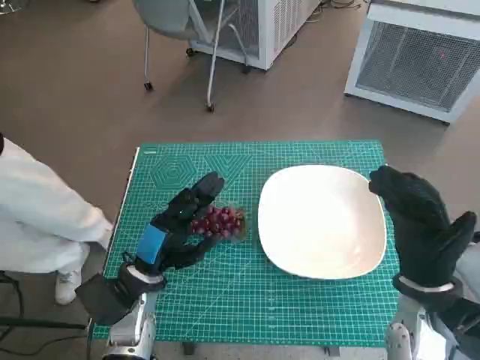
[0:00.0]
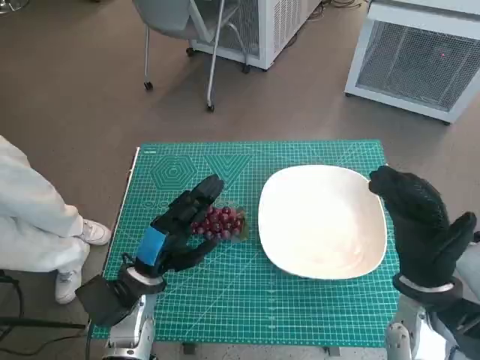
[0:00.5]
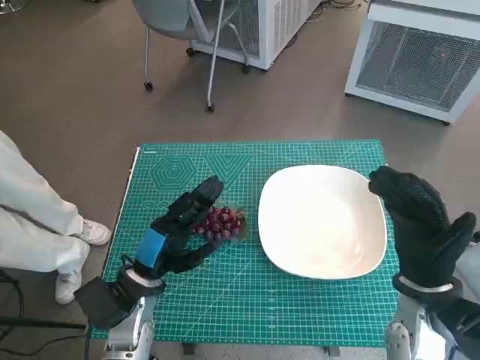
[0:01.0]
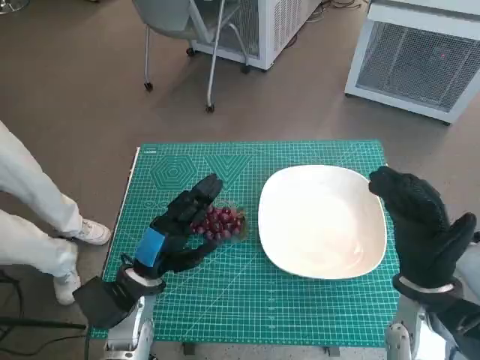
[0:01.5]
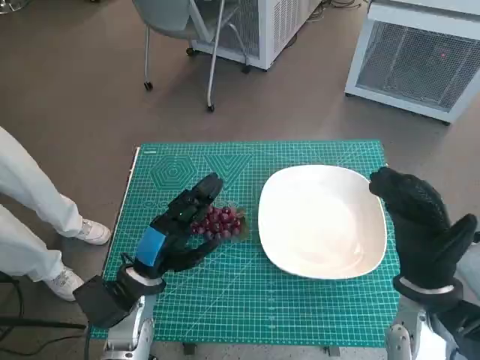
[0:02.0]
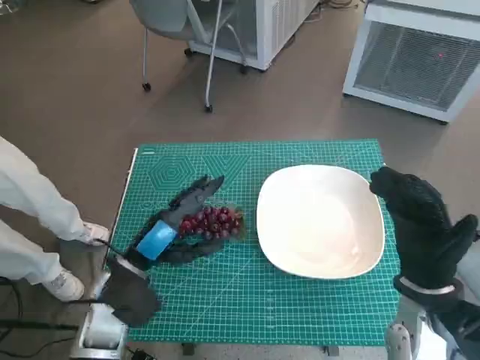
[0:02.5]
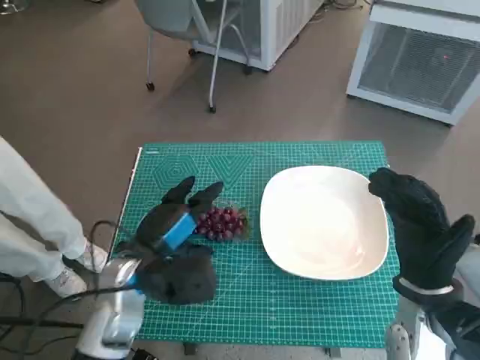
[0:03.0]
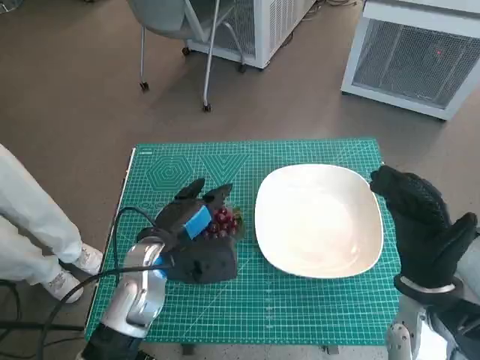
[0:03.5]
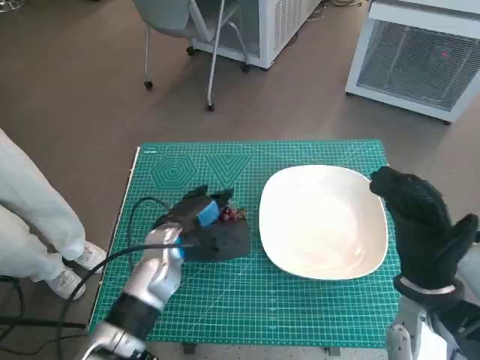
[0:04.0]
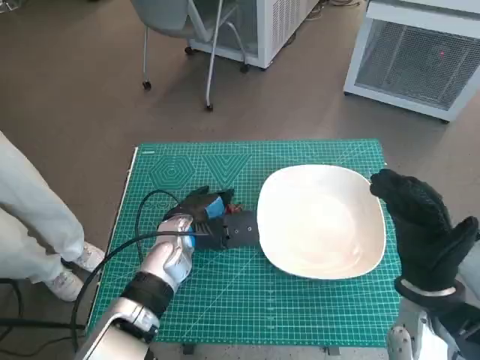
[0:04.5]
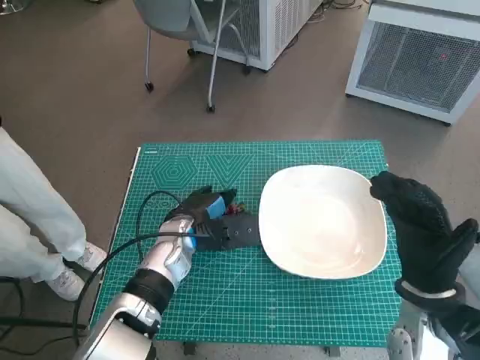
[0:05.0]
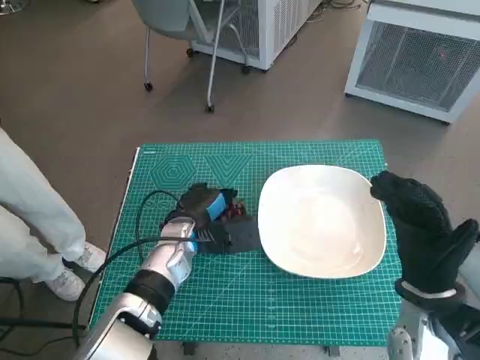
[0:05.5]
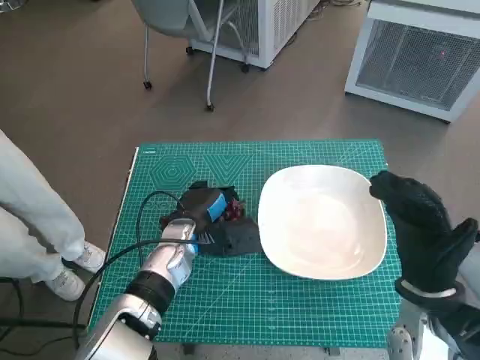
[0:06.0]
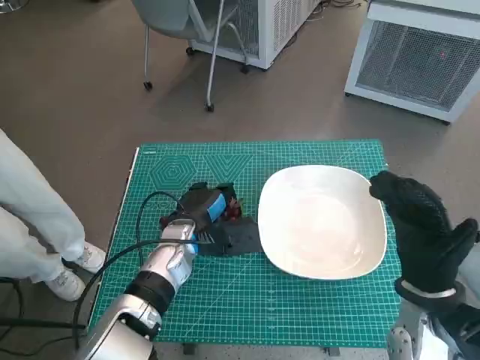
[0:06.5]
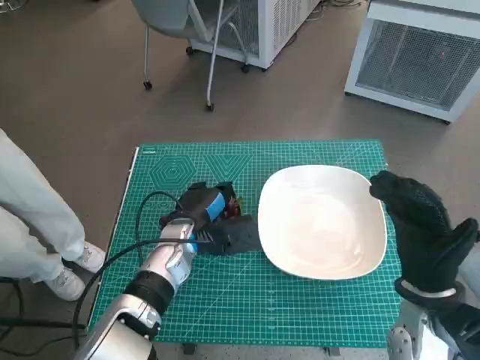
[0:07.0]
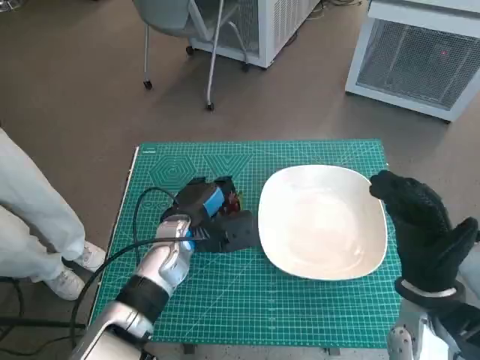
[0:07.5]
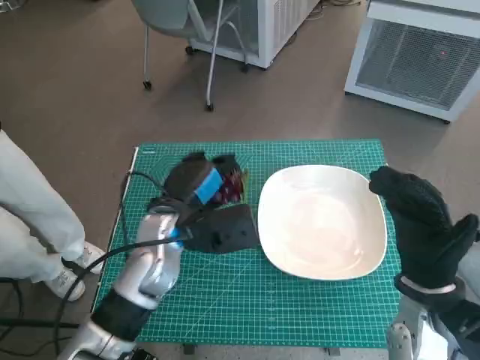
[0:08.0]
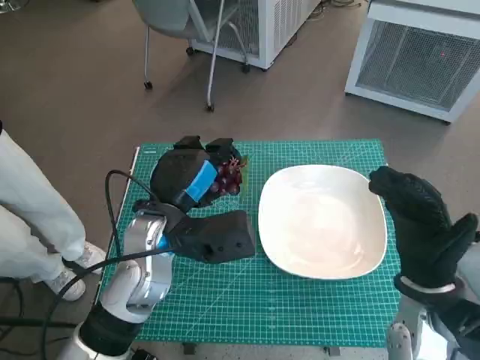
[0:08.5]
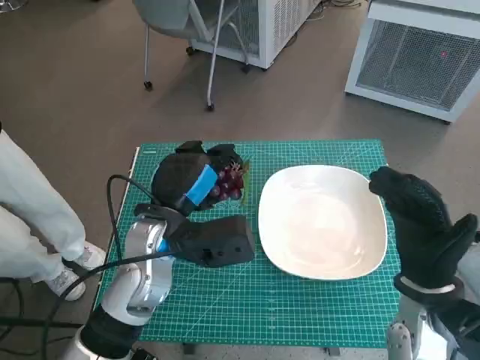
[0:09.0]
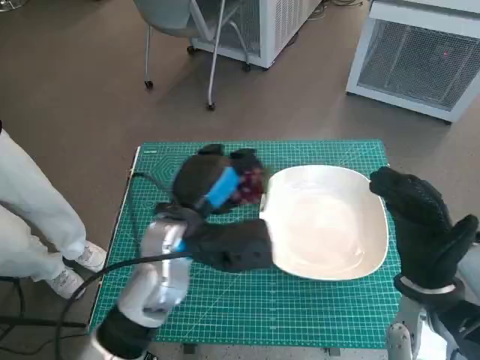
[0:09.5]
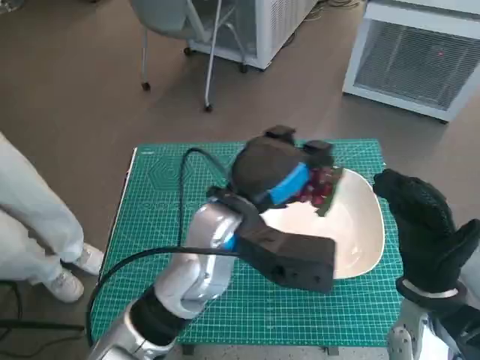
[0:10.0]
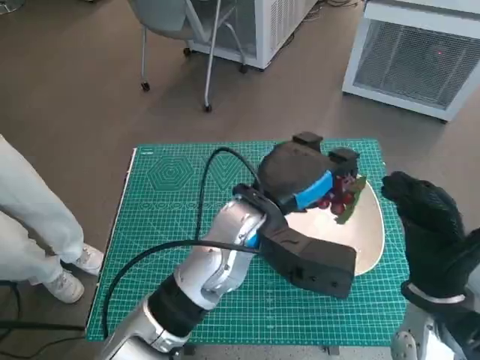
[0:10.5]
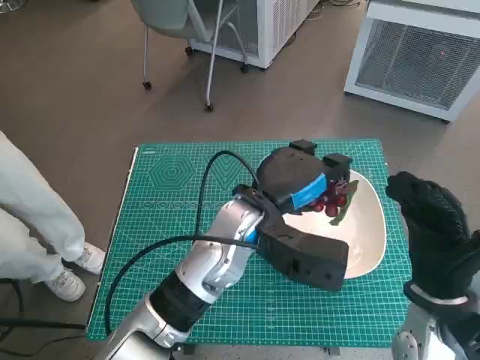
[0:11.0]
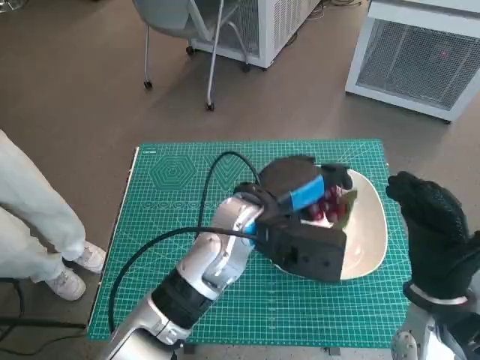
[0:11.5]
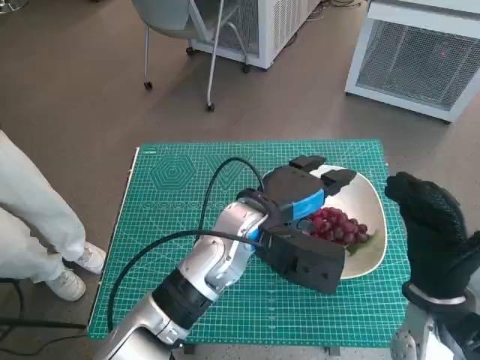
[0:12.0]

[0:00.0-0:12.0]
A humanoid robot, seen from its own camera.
Task of the whole recording: Pick up the grapes and put them on the plate.
Step, 0:00.0 to 0:07.0: Grasp the grapes with left hand.
0:02.0 to 0:04.0: The left hand goes roughly 5 cm forward.
0:04.0 to 0:06.0: There are only small adjustments of the hands.
0:06.0 to 0:08.0: The left hand travels upward by some 5 cm.
0:08.0 to 0:10.0: The left hand goes roughly 10 cm to the right and upward.

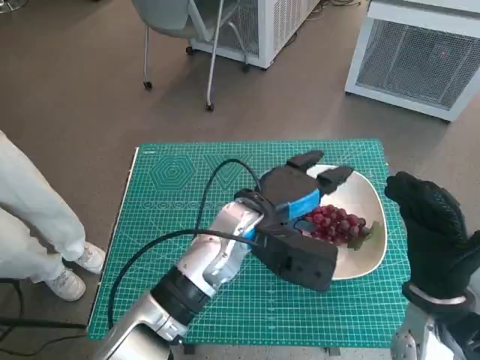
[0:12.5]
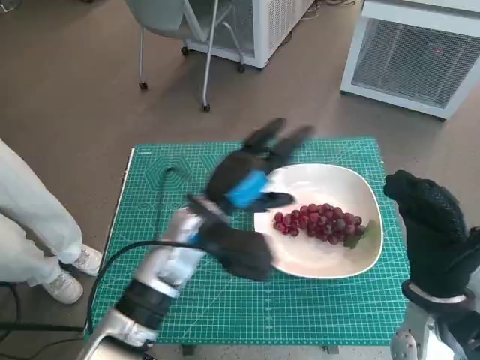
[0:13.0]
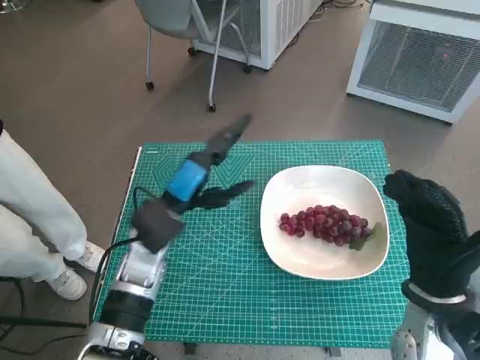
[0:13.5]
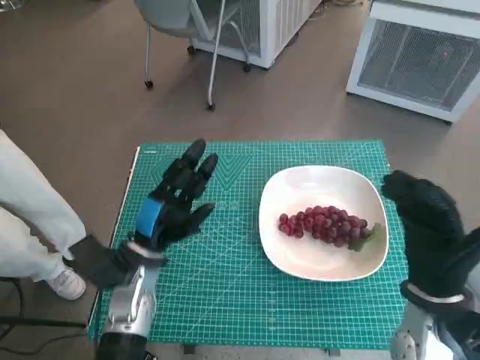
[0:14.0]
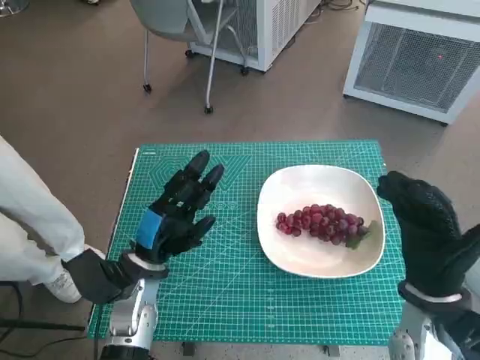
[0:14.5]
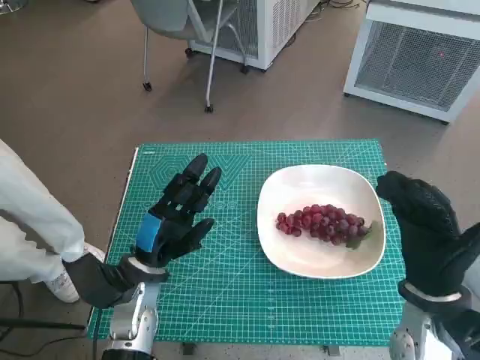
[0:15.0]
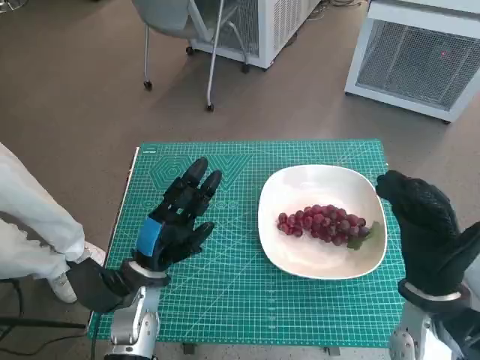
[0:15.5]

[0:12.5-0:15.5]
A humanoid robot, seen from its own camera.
Task of the whole recording: Pick up the grapes and put them on the plate.
0:12.5 to 0:14.0: The left hand heads to the left and downward, covering about 20 cm.
0:14.0 to 0:15.5: The hands make only small movements.

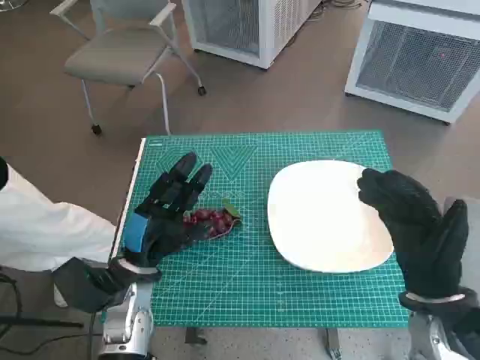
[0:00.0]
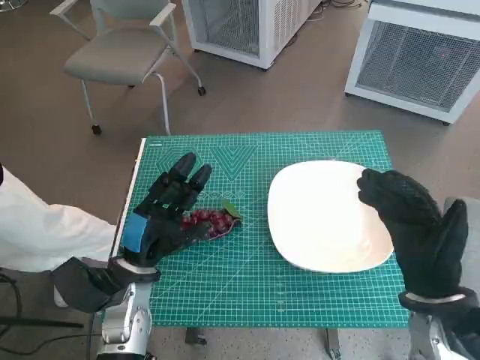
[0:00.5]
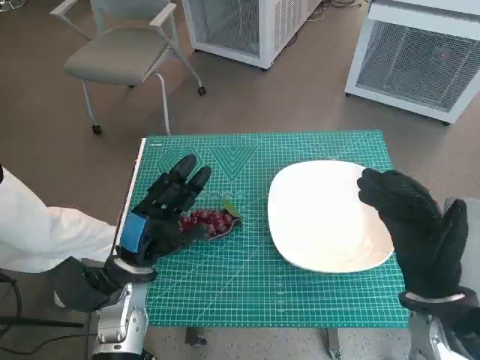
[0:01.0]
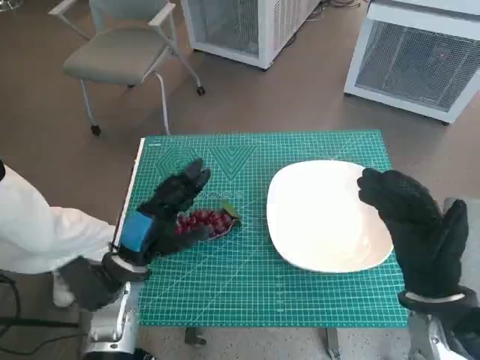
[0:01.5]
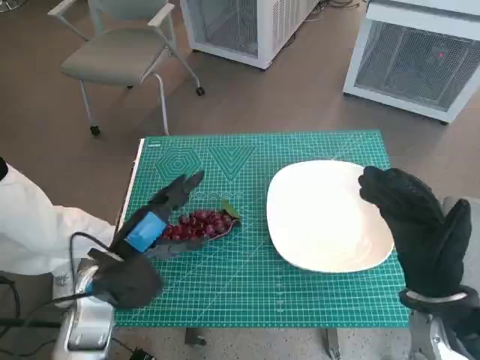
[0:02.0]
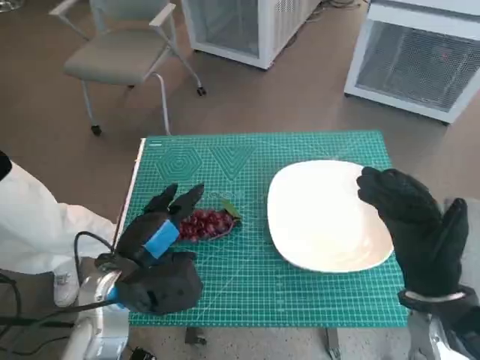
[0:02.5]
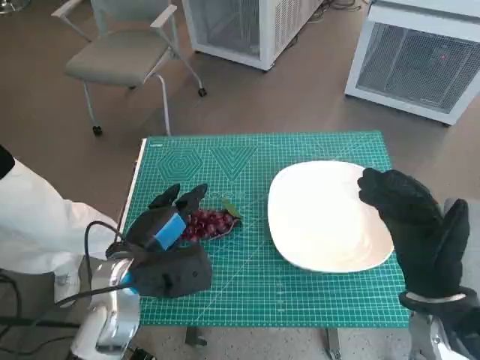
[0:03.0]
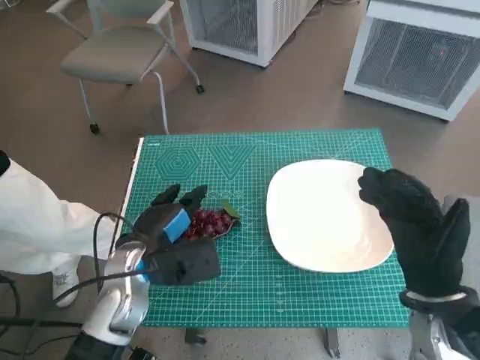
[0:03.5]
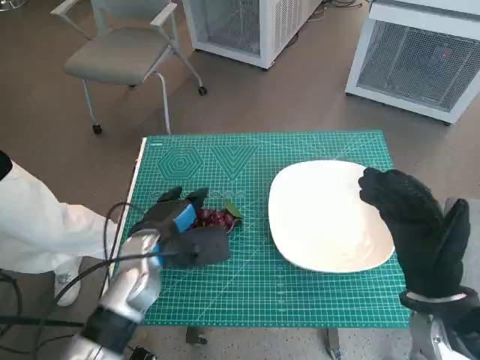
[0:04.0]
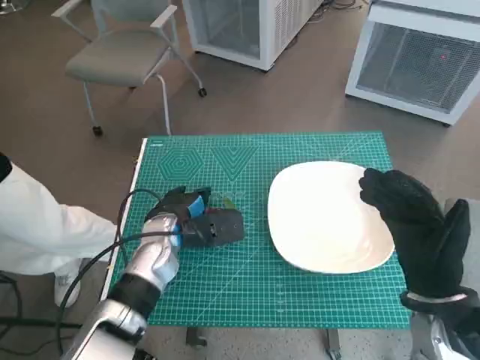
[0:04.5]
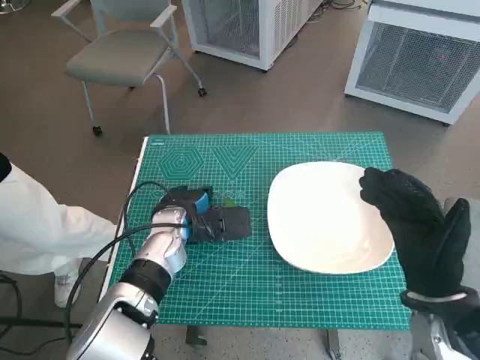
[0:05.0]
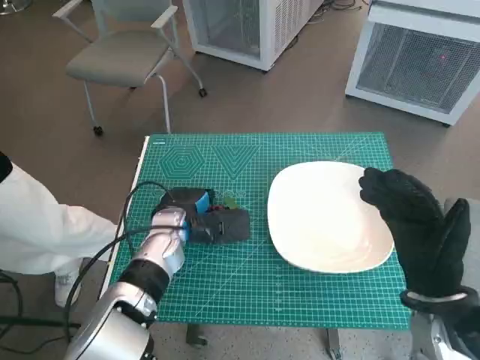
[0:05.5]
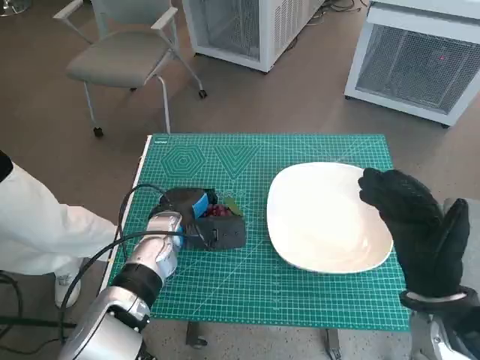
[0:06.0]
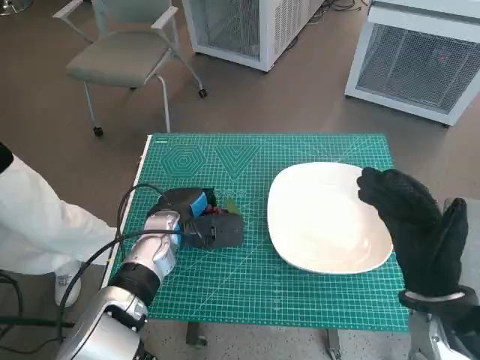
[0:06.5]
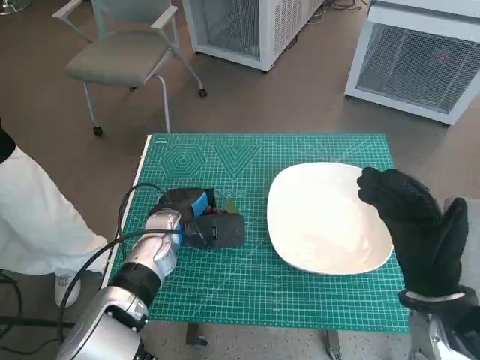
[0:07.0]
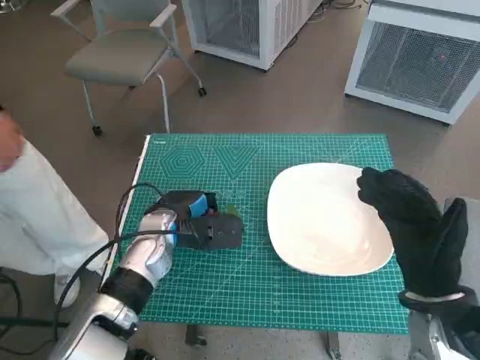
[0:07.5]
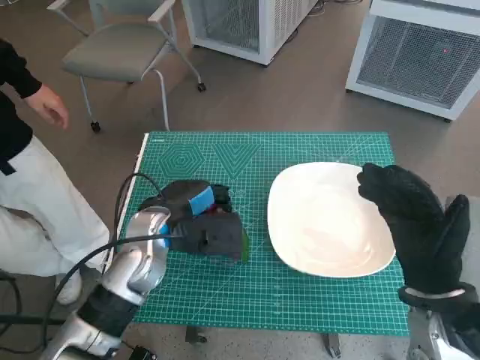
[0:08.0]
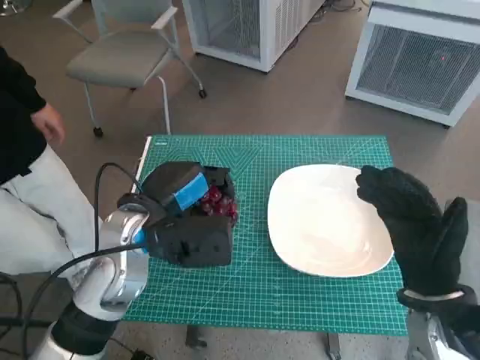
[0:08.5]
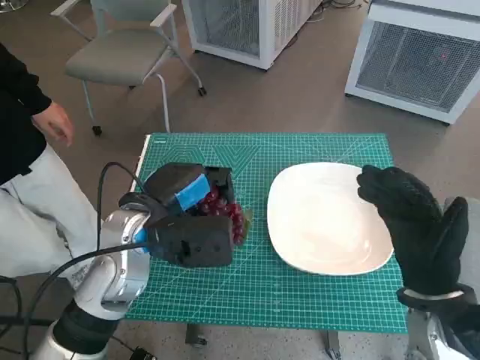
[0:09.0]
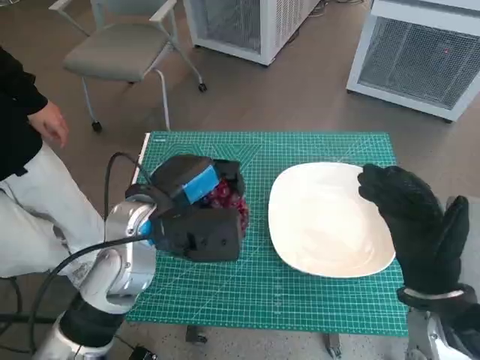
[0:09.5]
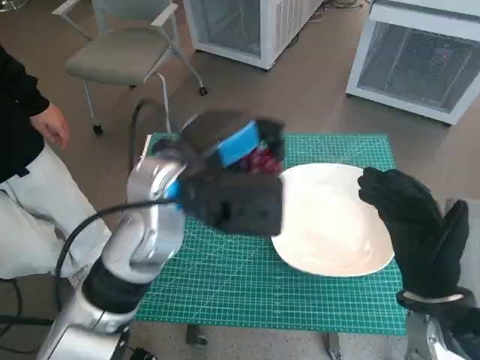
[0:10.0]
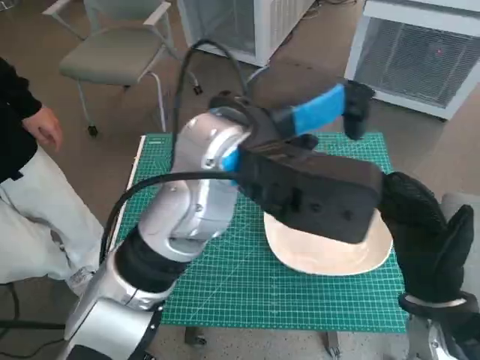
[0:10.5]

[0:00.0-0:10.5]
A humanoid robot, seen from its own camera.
Task of the whole recording: Pick up the grapes and put them on the plate.
Step, 0:00.0 to 0:07.0: Grasp the grapes with left hand.
0:02.0 to 0:04.0: The left hand changes place by approximately 5 cm.
0:04.0 to 0:06.5: The left hand ends up some 5 cm from where it was.
0:06.5 to 0:08.5: The left hand travels upward and backward by roughly 10 cm.
0:08.5 to 0:10.5: The left hand goes some 15 cm upward and to the right.
